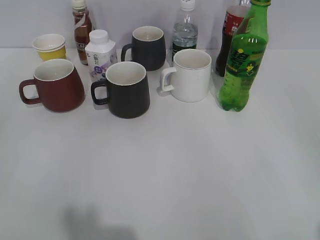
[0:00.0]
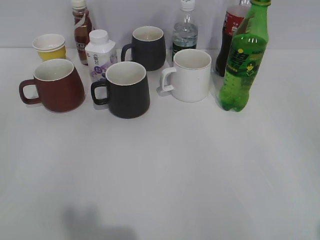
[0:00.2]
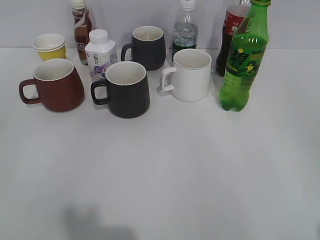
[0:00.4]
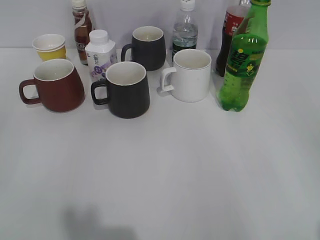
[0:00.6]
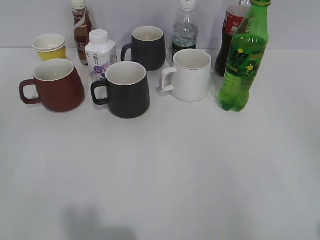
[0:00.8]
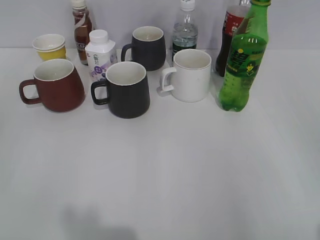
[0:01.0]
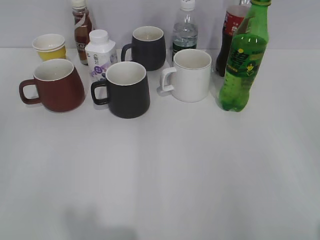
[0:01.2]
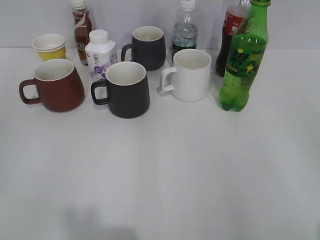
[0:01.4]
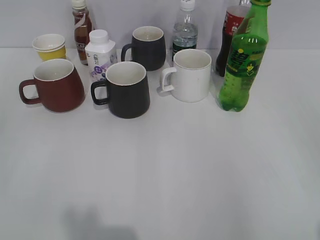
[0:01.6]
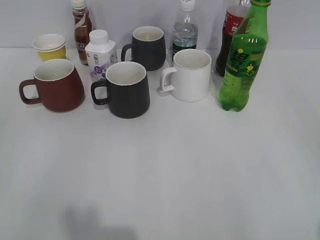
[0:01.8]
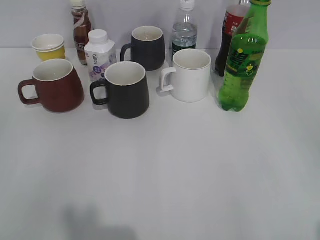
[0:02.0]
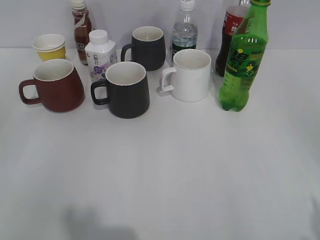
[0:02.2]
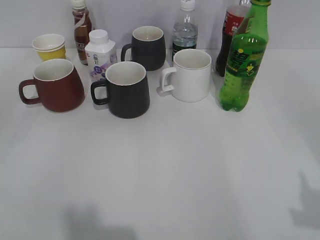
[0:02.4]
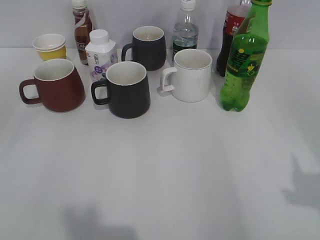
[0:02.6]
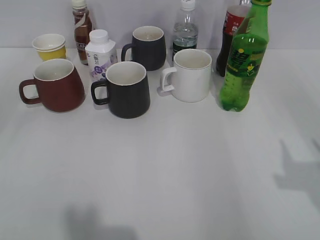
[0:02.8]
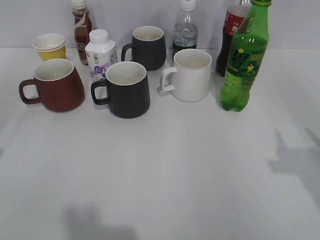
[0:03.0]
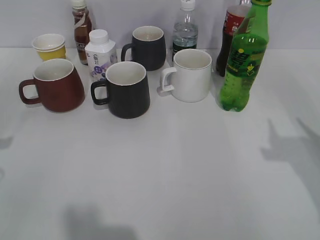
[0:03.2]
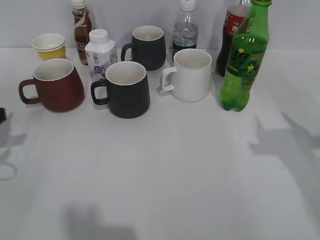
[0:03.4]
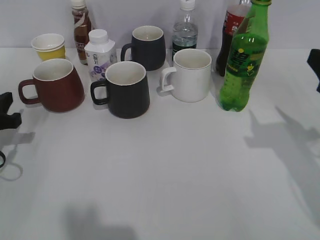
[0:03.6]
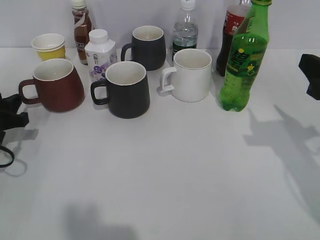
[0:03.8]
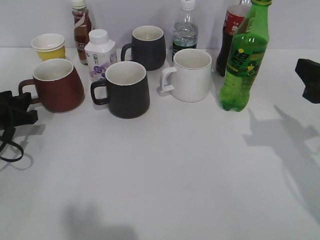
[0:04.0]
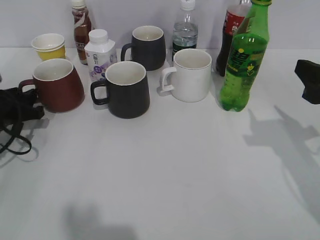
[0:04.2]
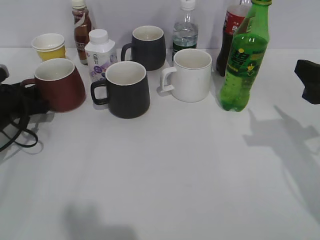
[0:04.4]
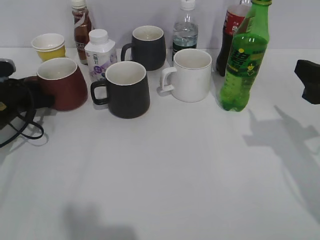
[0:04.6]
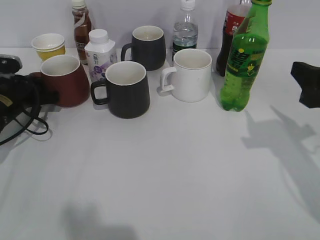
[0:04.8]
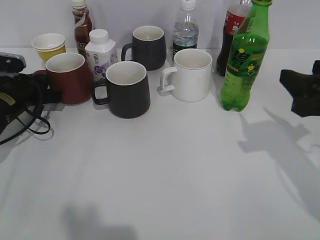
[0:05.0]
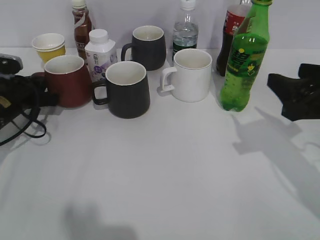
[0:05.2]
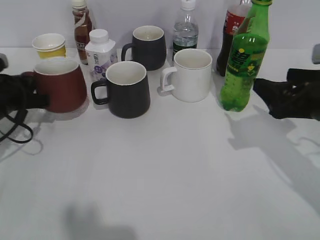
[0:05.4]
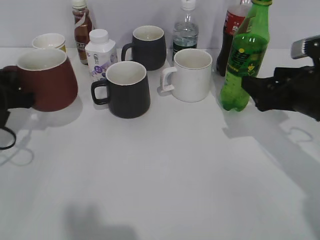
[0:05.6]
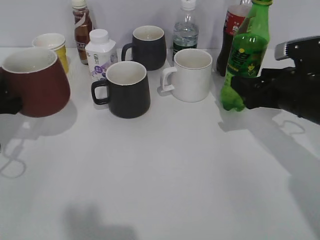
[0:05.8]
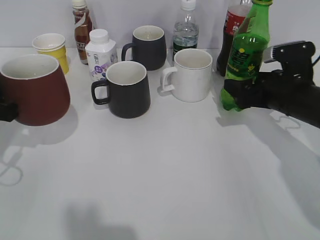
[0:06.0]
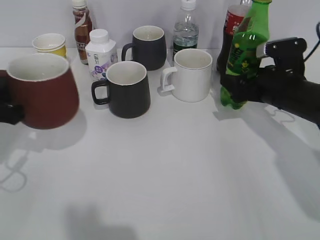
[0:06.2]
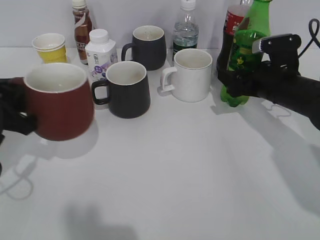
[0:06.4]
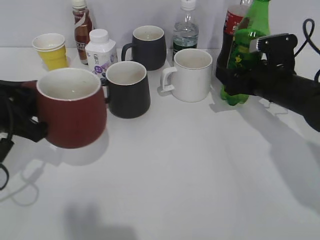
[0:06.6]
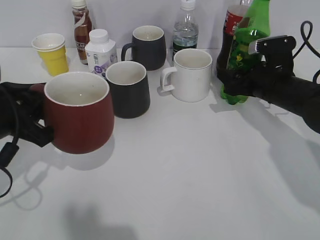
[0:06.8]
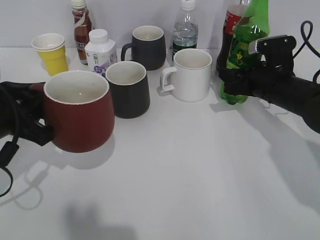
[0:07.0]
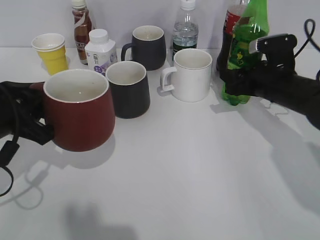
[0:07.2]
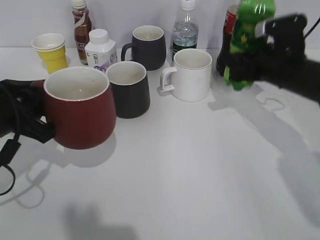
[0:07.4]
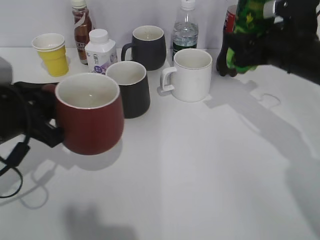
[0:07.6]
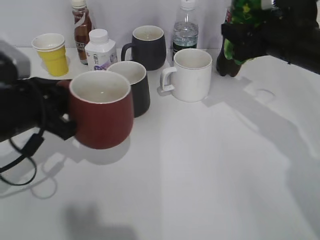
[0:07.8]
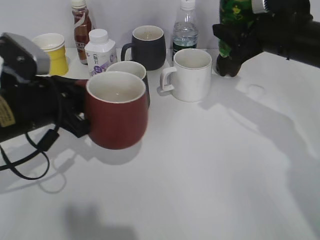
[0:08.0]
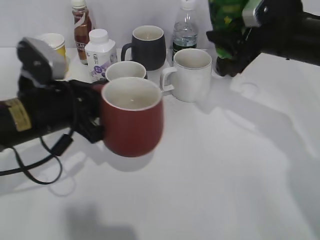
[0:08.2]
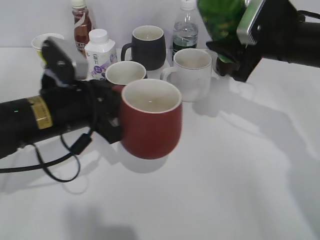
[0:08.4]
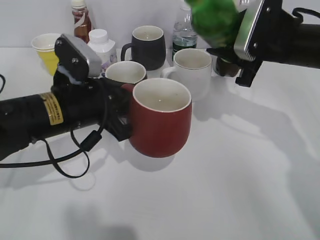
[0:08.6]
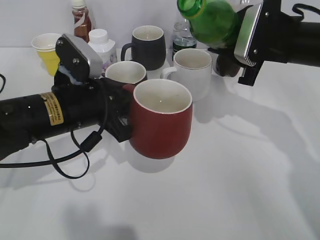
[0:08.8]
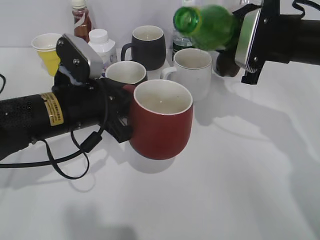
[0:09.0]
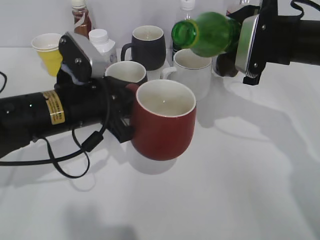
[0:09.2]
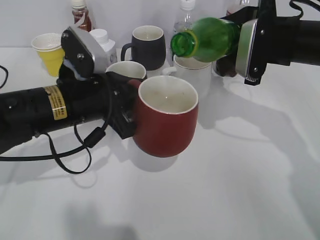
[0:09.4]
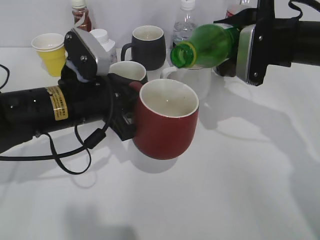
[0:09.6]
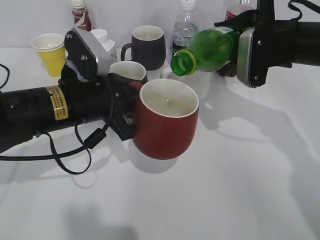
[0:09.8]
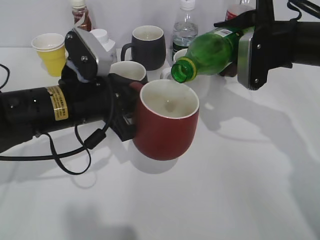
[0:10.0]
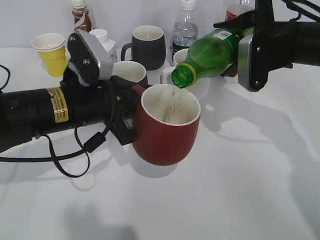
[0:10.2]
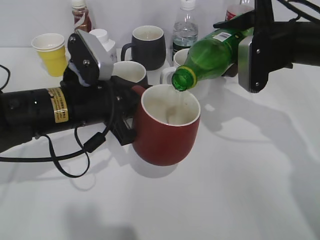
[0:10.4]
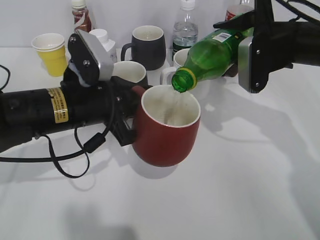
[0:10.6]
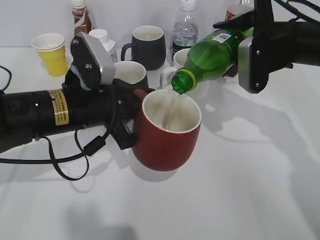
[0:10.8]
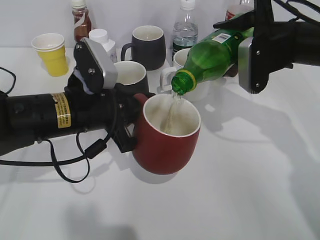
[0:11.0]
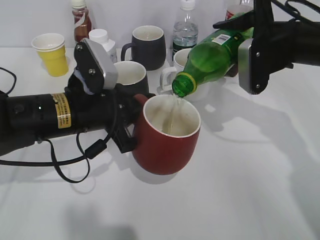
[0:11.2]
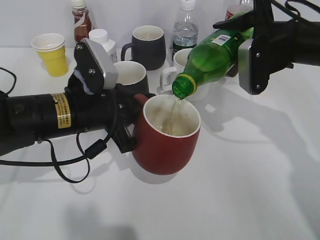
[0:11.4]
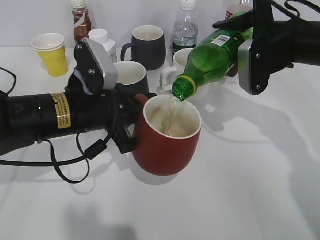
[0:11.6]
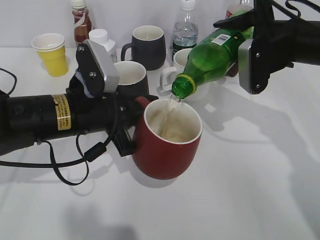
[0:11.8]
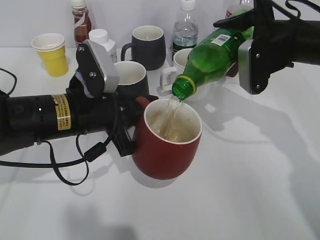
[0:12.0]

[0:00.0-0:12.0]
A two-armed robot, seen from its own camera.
Step, 0:01.8 to 0:04.6: Grasp the red cup with left gripper.
Step, 0:05.0 to 0:06.8: Grasp the bottle with sprite with right gripper.
0:01.6 to 0:03.0: The right gripper goes roughly 15 cm forward.
0:03.0 to 0:04.4: The right gripper shifts about 10 cm forward and downward. The left gripper moves forward and downward, about 20 cm.
0:04.4 to 0:06.0: The left gripper shifts some 10 cm backward and upward, and closes its fingers, while the right gripper moves forward and downward, some 15 cm, and opens up.
0:06.0 to 0:07.6: The left gripper heads to the right, covering approximately 5 cm; the right gripper goes roughly 5 cm upward, and closes.
0:07.6 to 0:09.0: The left gripper heads to the right, covering about 10 cm.
0:10.4 to 0:12.0: The grippers make only small movements.

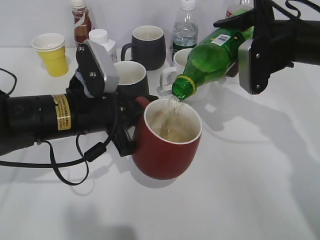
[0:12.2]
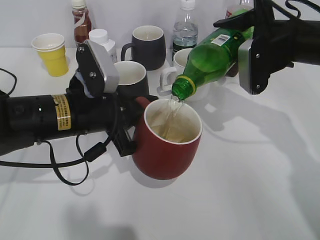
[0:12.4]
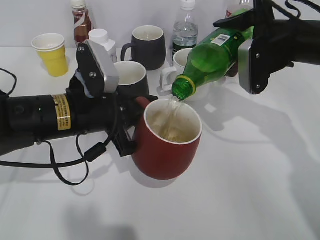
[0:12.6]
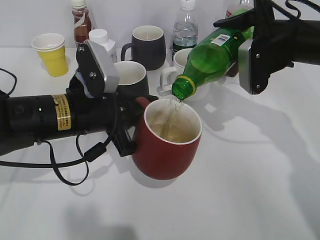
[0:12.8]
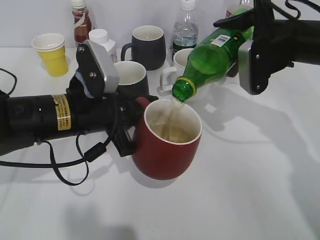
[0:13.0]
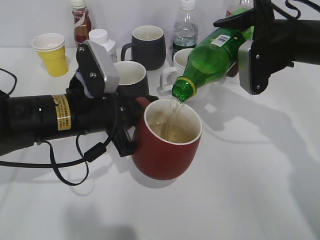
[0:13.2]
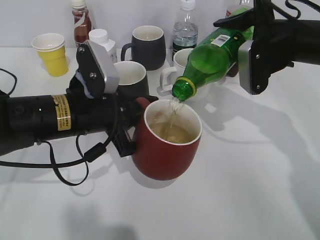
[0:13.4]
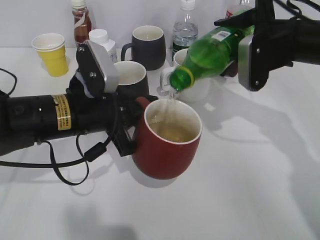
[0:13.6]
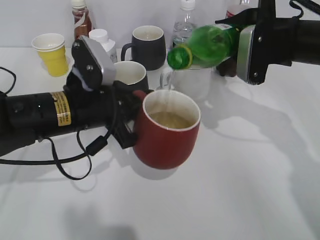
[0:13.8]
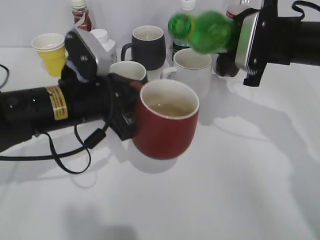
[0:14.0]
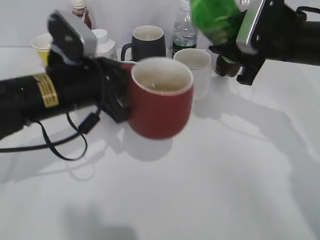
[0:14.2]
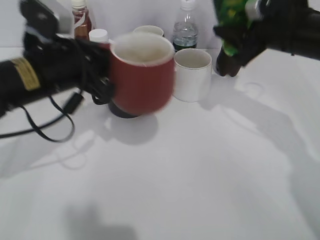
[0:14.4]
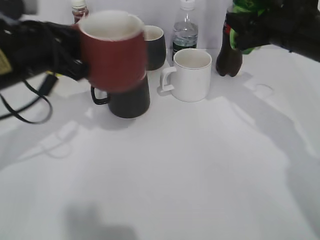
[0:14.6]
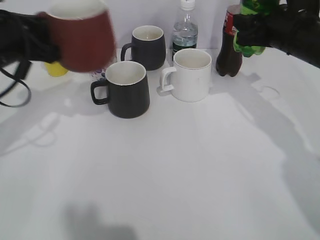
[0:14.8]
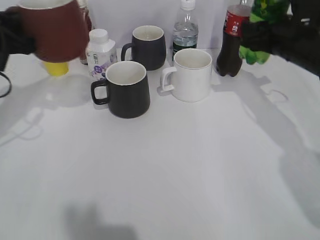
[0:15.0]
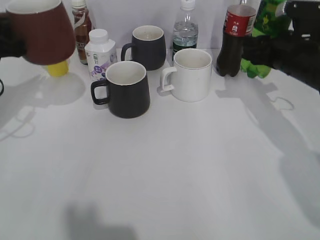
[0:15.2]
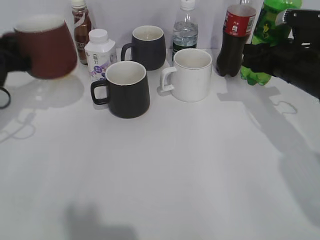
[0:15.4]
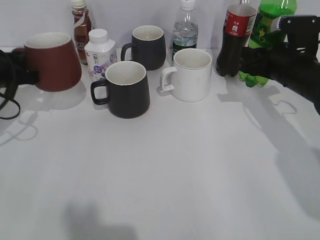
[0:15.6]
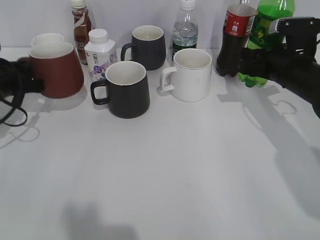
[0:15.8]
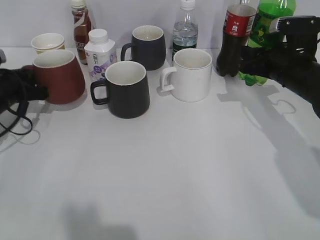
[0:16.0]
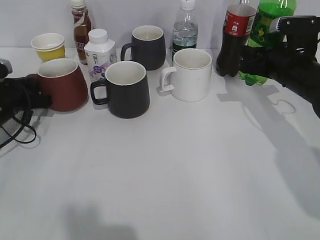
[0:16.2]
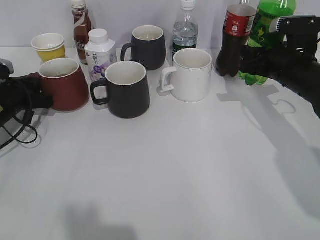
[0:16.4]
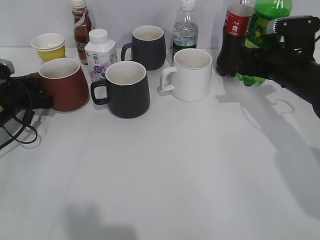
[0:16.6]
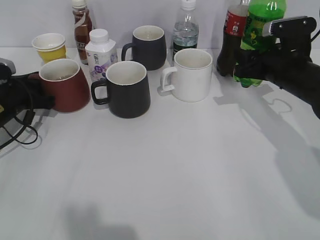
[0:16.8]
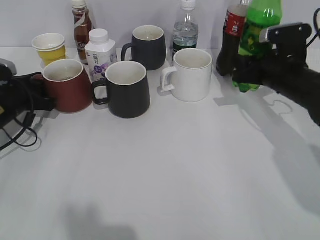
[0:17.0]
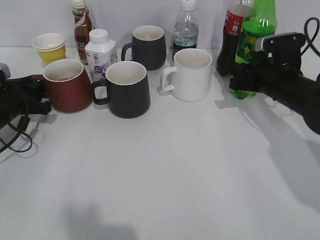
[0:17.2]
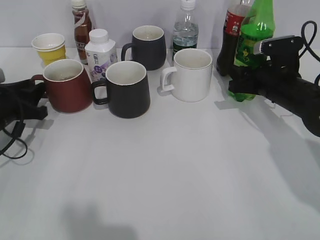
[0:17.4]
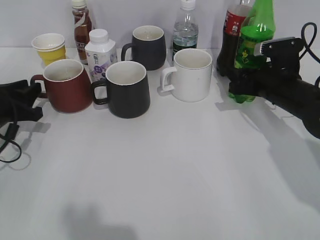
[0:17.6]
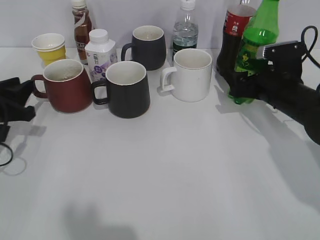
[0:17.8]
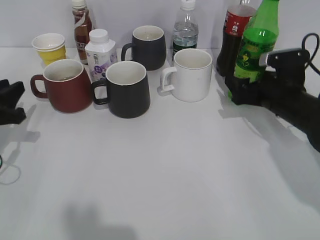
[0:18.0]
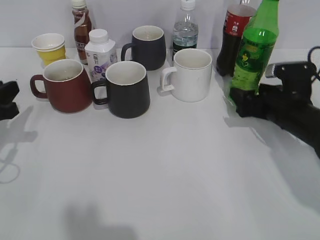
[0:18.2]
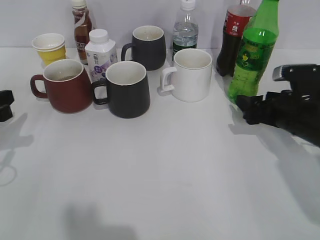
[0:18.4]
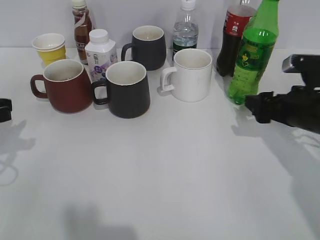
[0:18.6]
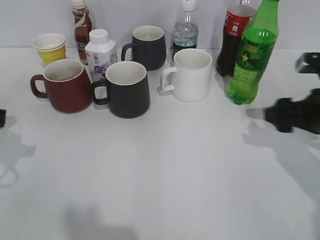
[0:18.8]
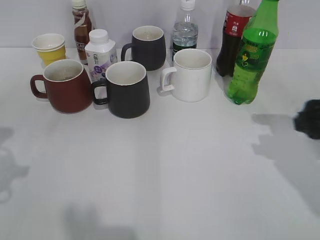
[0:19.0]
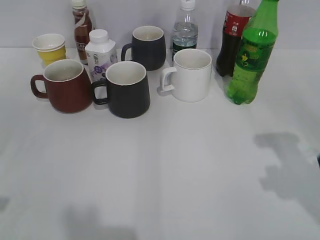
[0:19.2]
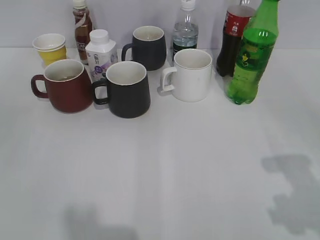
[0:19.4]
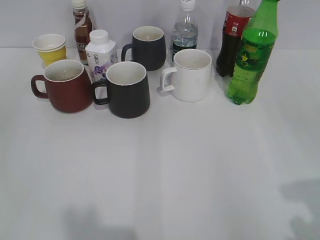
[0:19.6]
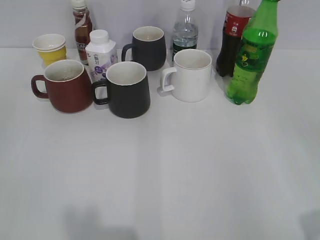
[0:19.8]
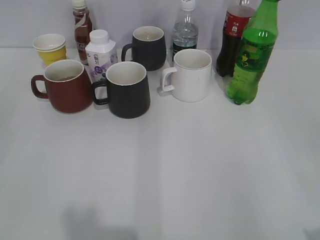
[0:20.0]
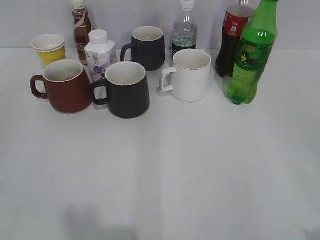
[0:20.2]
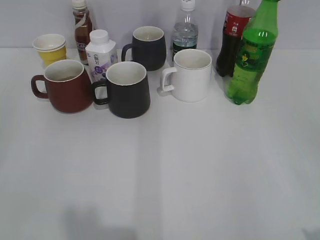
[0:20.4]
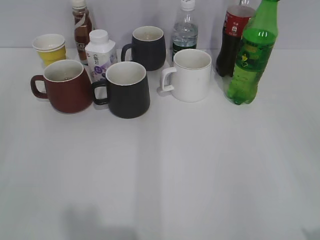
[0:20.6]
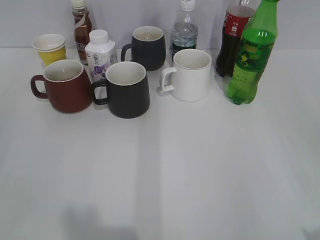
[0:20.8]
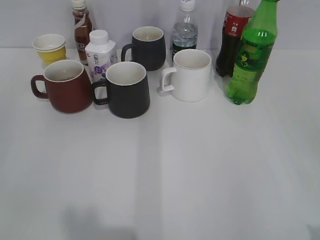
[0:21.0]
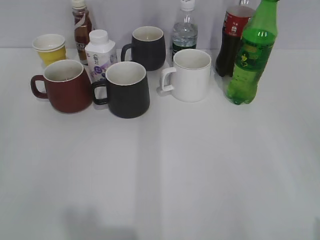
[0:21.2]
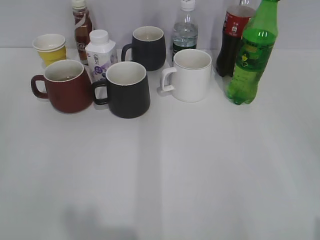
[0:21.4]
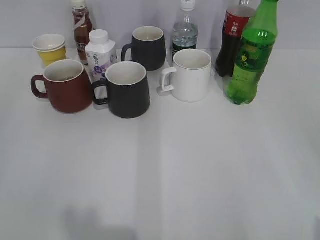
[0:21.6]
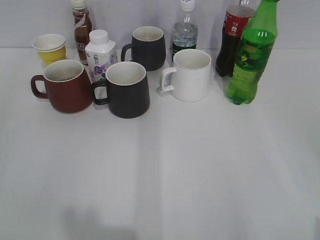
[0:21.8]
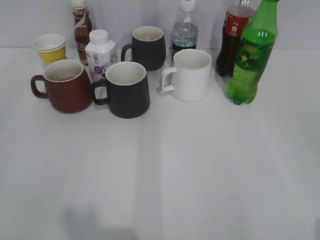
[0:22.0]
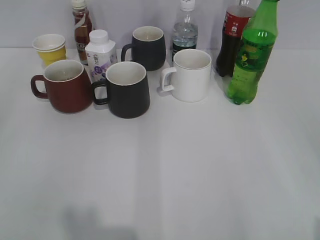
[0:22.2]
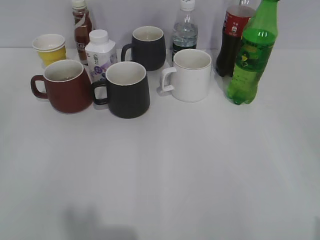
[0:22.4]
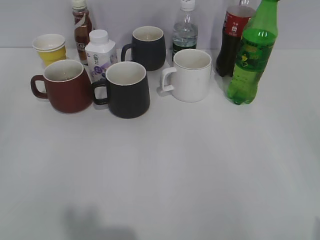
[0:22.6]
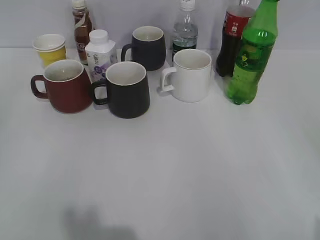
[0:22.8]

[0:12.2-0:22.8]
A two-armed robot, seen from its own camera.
Step, 0:14.2 to 0:14.6: Place the red cup on the table with left gripper.
Step, 0:14.8 to 0:18.2: Place the sprite bottle on the table with right gripper.
0:12.2 to 0:13.8: The grippers make only small movements.
0:13.8 to 0:15.2: The right gripper shifts by roughly 5 cm; the left gripper heads to the left, covering approximately 15 cm.
0:15.2 to 0:16.8: The left gripper goes some 15 cm downward, and opens.
0:16.8 to 0:18.2: The left gripper heads backward and upward, covering some 10 cm. Meanwhile the right gripper heads downward, covering roughly 5 cm, and opens up.
0:18.2 to 0:19.8: Both grippers travel together backward and upward, approximately 30 cm.
